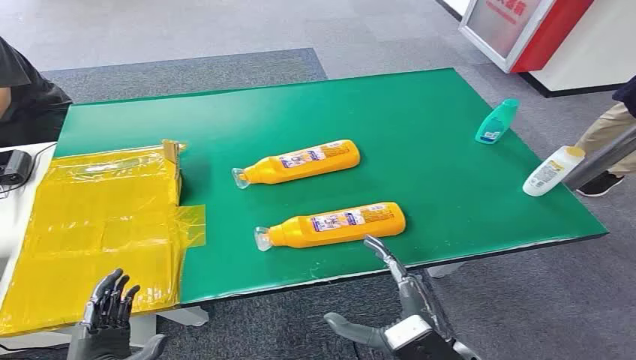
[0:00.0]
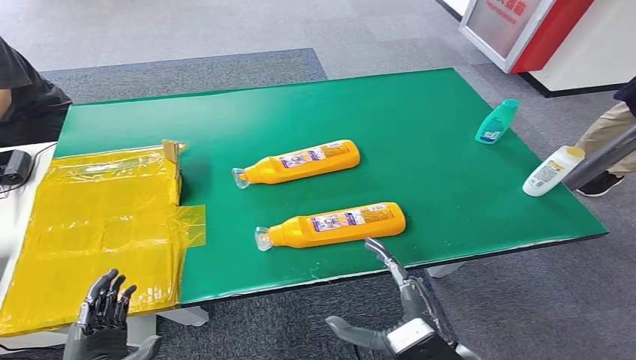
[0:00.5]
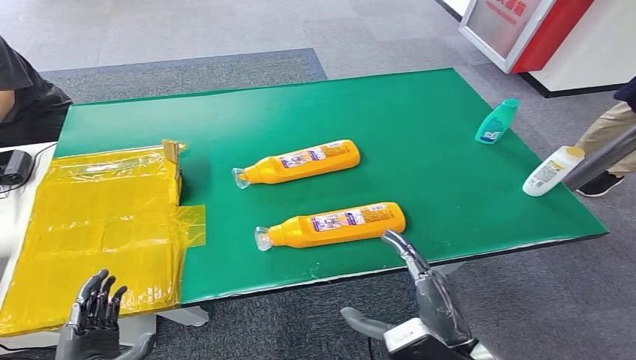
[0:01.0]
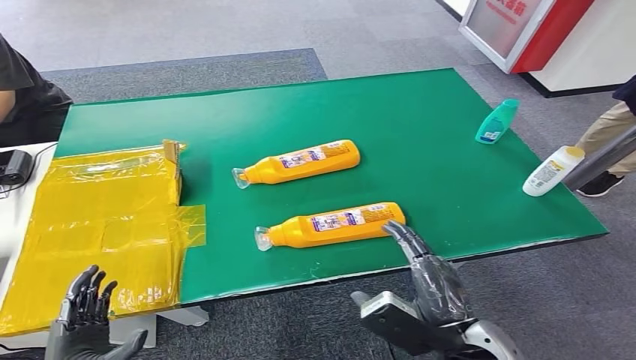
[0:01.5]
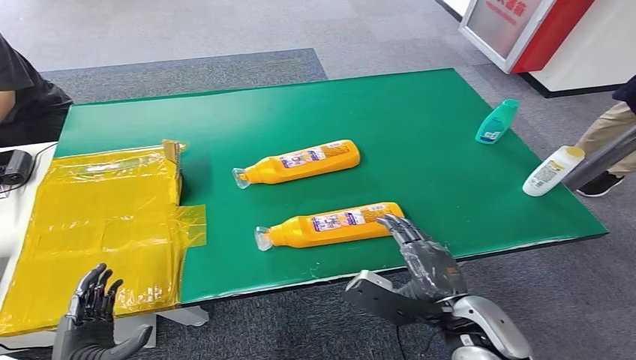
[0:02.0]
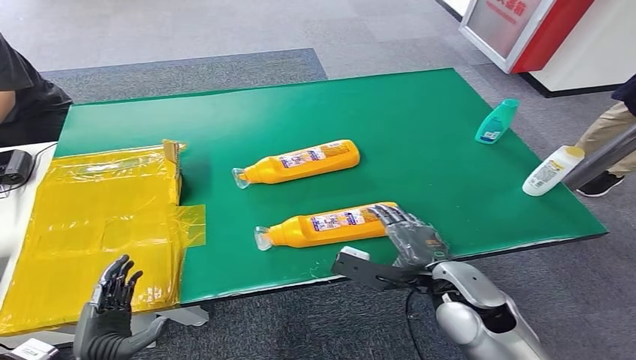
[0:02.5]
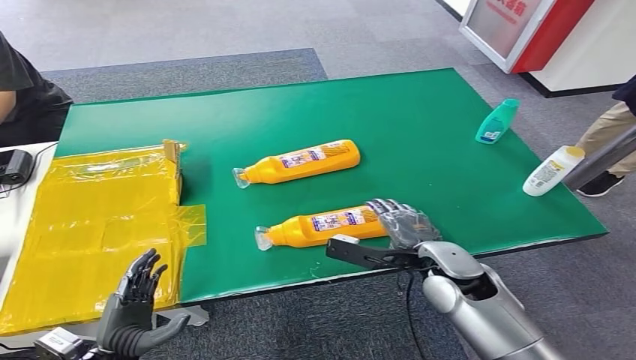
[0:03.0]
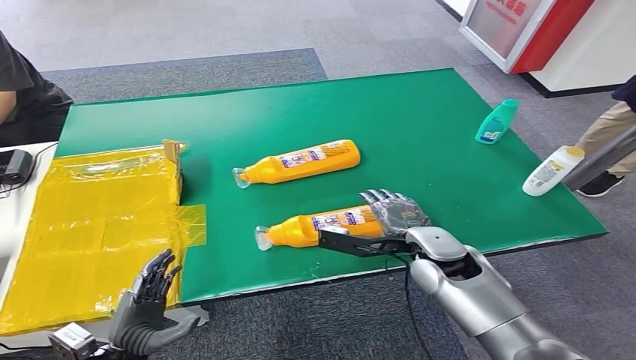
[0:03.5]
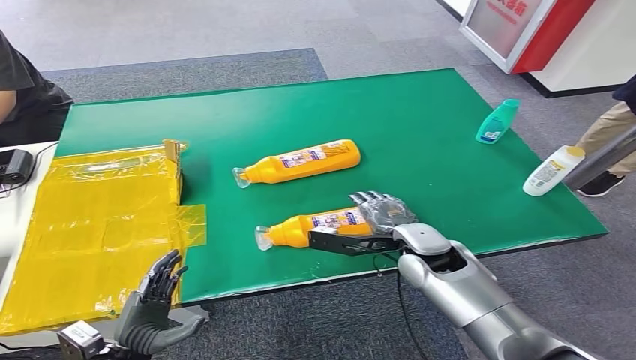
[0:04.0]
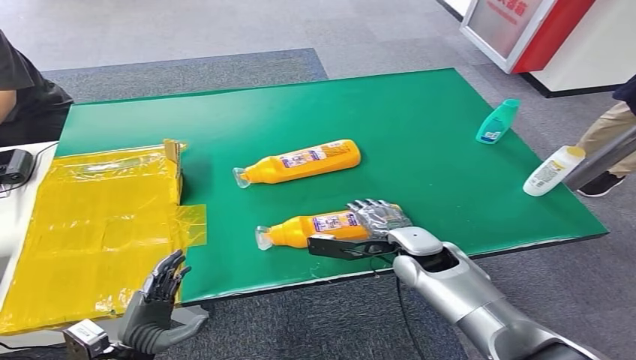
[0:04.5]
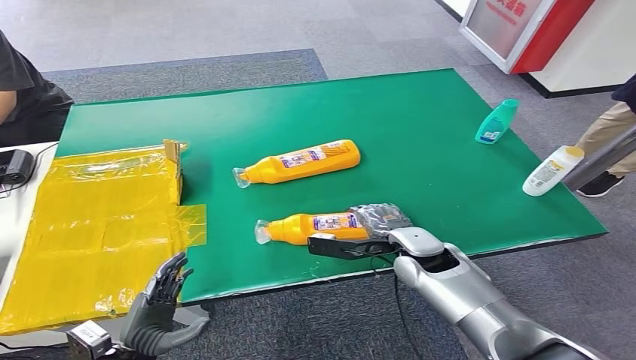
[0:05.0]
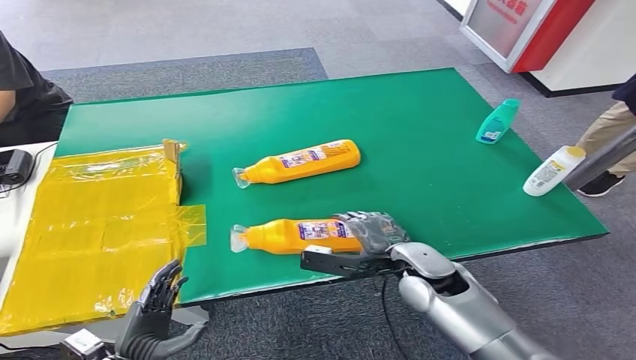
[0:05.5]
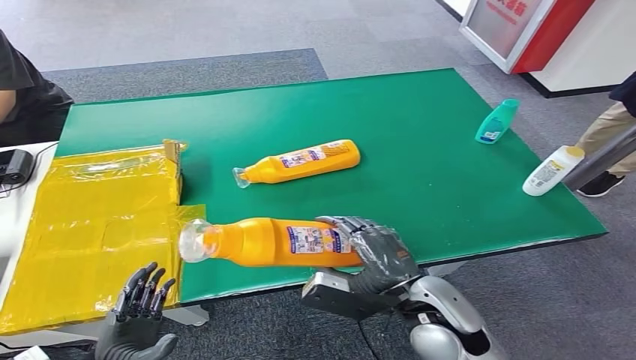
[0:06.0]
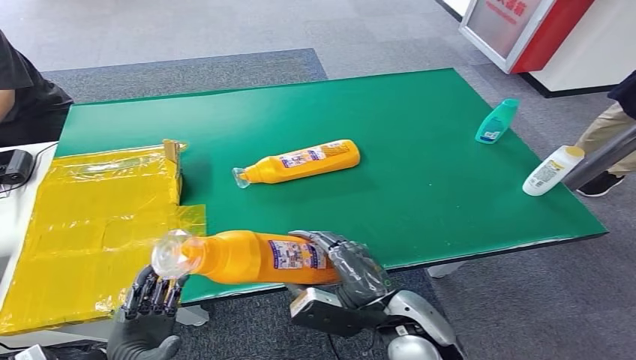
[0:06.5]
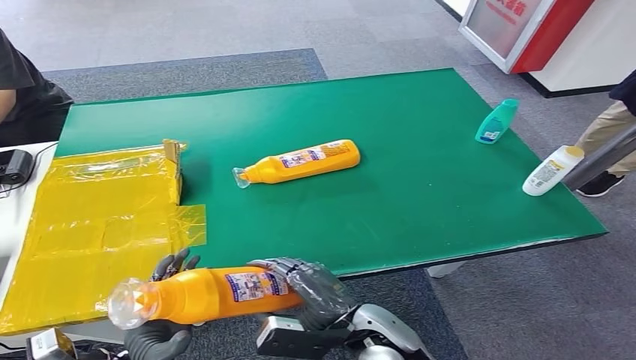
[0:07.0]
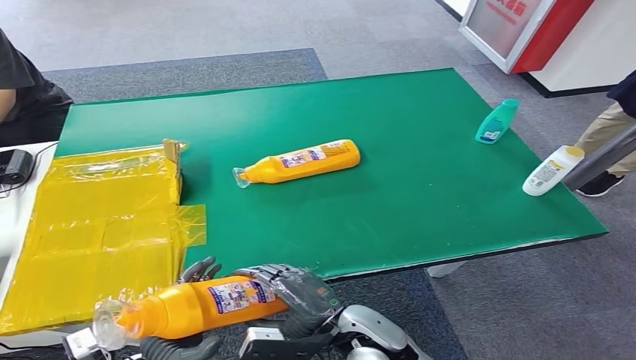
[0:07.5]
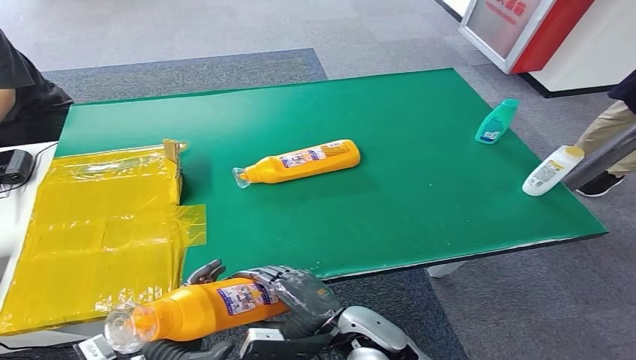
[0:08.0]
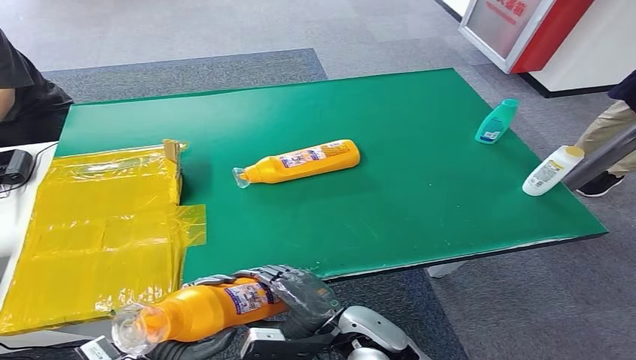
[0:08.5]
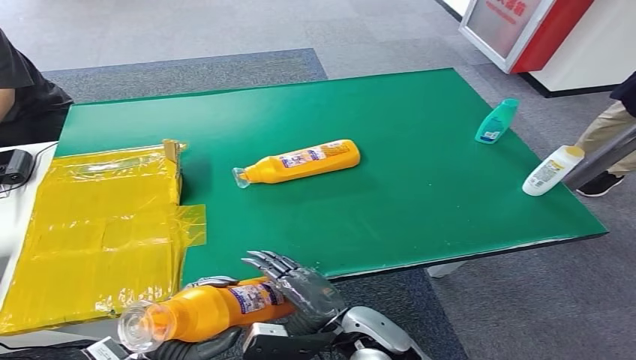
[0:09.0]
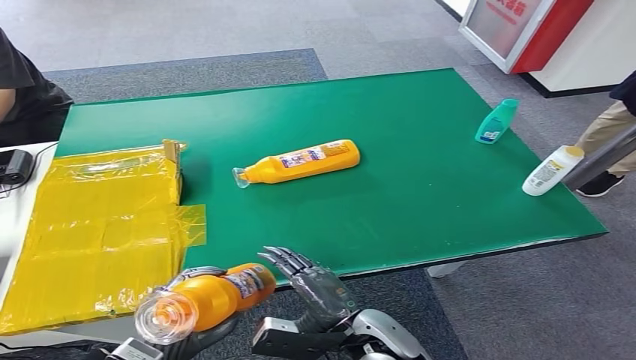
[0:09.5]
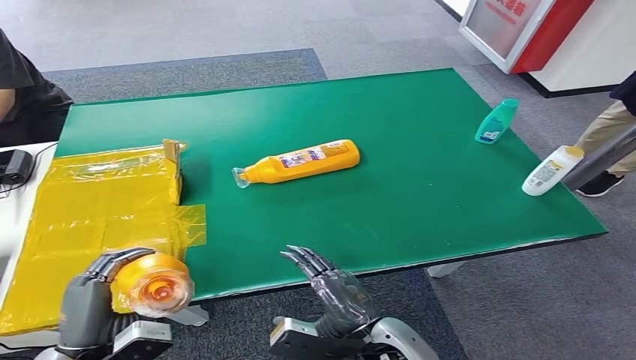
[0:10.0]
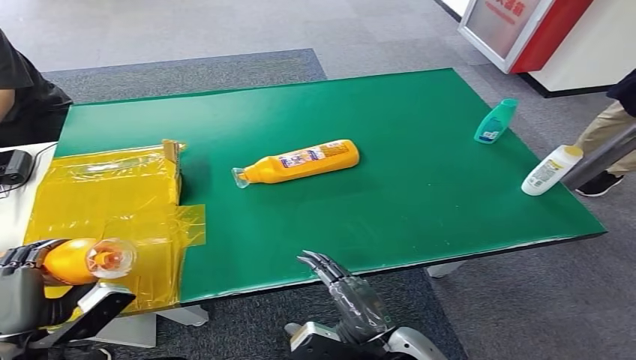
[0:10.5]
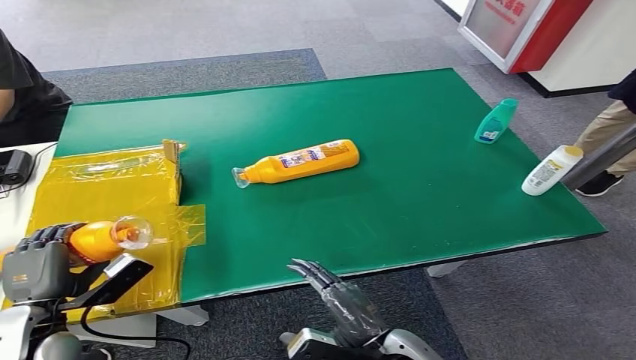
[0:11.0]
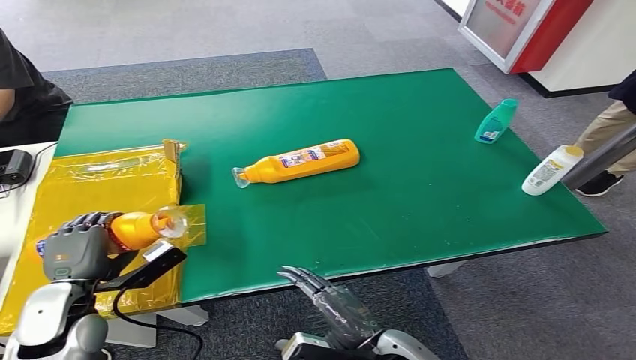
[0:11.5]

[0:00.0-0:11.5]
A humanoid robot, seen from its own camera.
Step, 0:00.0 to 0:05.5: Pick up the bottle from the table.
0:02.0 to 0:04.0: The left hand ends up roughly 5 cm from where it was, while the right hand goes about 15 cm forward.
0:04.0 to 0:06.0: The right hand goes roughly 10 cm backward.
0:06.0 to 0:07.5: The left hand moves to the right, about 5 cm; the right hand moves to the left and downward, about 10 cm.
0:09.5 to 0:11.5: The left hand goes some 15 cm forward and to the left.

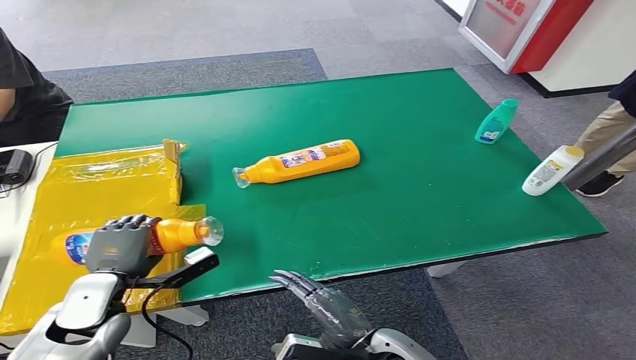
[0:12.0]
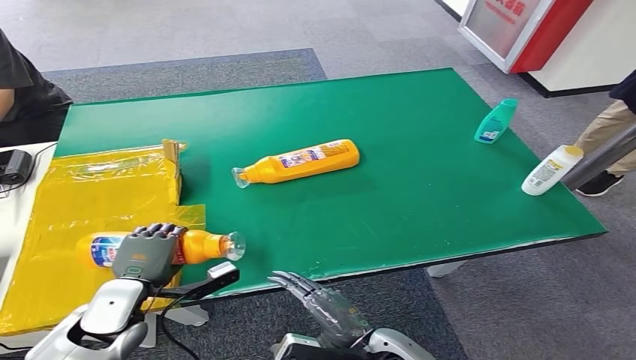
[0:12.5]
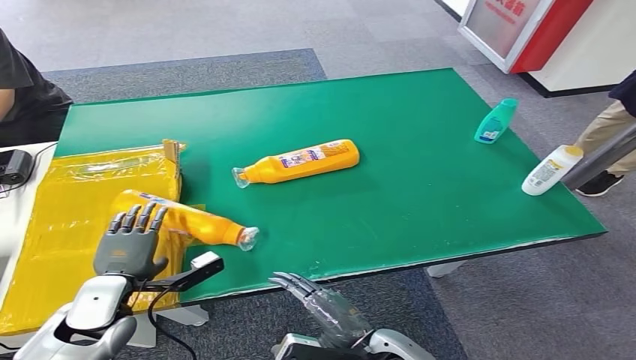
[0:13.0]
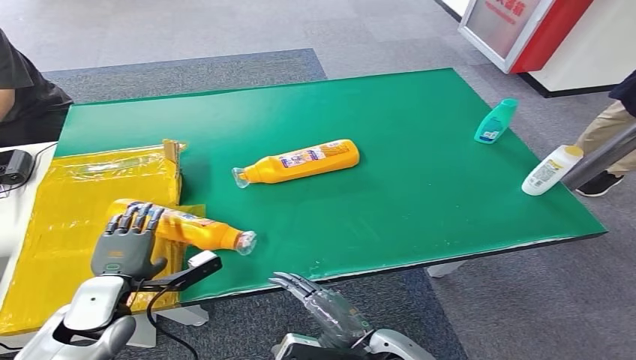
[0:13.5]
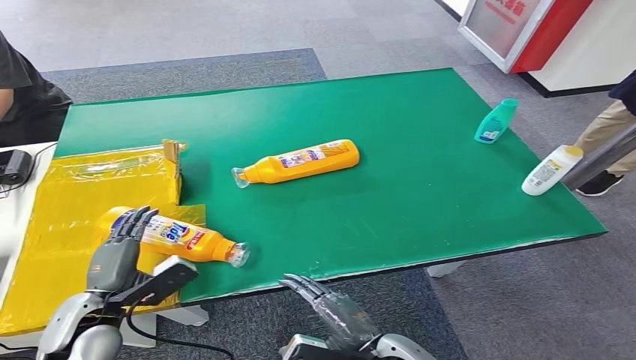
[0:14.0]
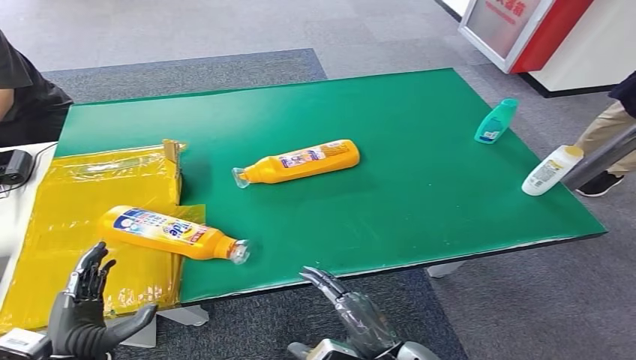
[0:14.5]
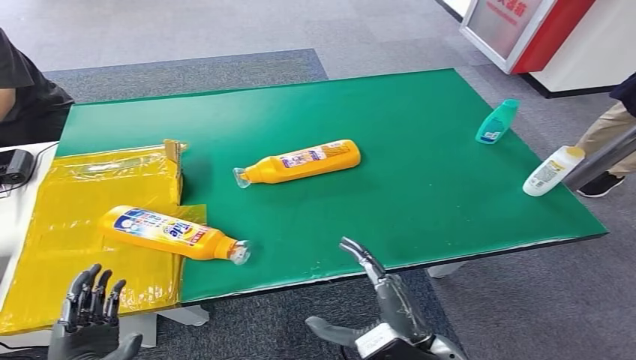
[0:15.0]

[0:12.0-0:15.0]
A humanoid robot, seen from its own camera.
Step, 0:12.0 to 0:15.0: Turn the bottle to the front side.
0:12.0 to 0:13.5: There are only small adjustments of the hands.
0:13.5 to 0:15.0: The left hand shifts approximately 15 cm backward. Meanwhile the right hand moves approximately 5 cm.
